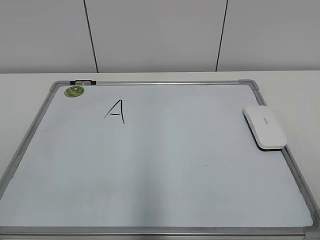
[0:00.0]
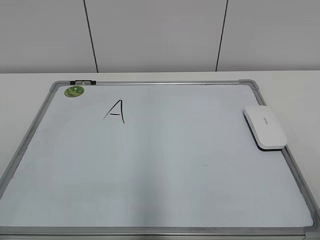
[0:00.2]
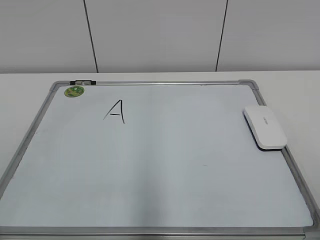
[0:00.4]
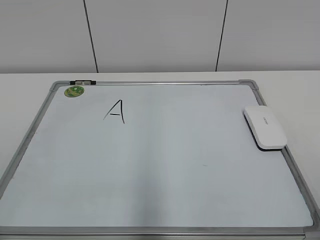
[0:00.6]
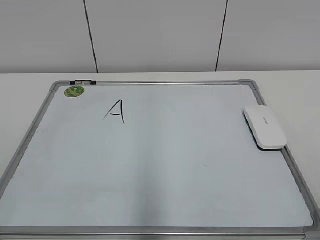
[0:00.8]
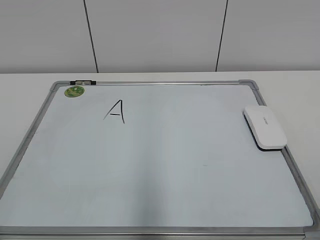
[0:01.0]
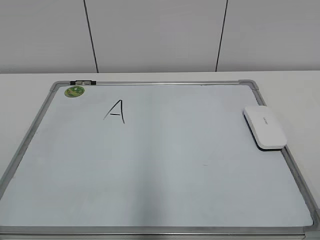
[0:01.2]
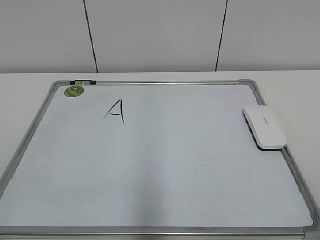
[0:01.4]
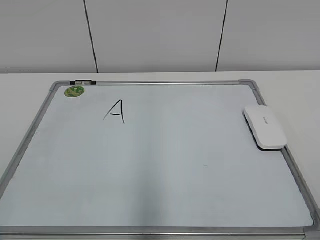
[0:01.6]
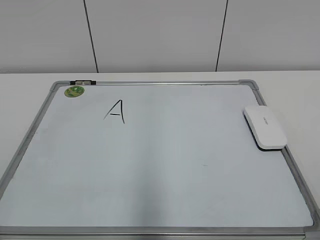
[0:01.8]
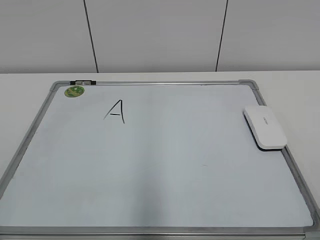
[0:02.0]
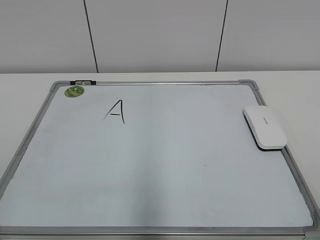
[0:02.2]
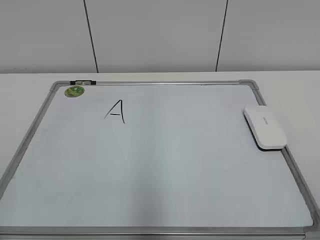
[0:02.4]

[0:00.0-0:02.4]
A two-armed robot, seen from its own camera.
Task of the whole recording: pick up the eraser on the blackboard and erase the letter "a".
0:01.2 to 0:02.4: The two grippers keep their place.

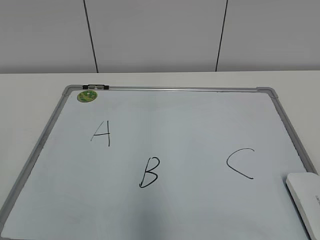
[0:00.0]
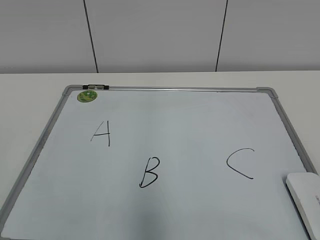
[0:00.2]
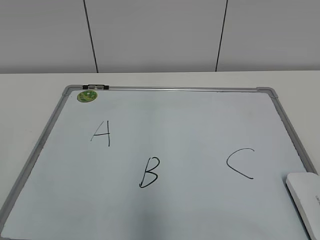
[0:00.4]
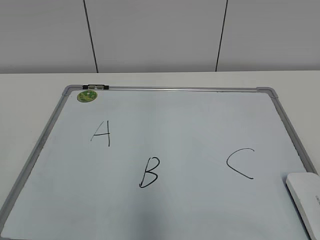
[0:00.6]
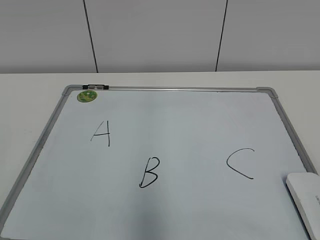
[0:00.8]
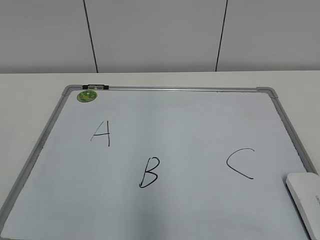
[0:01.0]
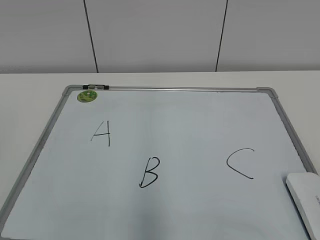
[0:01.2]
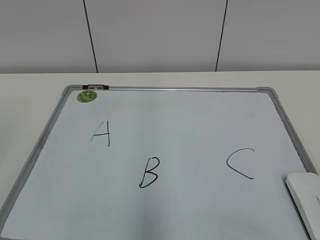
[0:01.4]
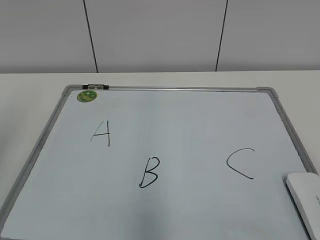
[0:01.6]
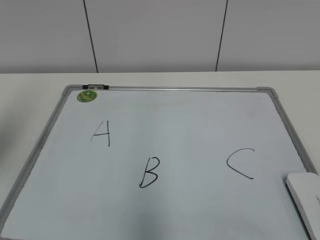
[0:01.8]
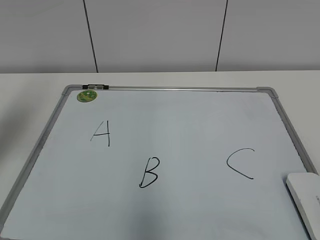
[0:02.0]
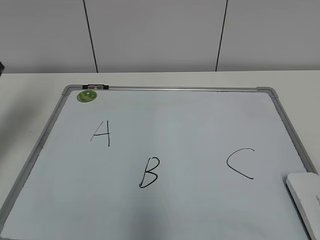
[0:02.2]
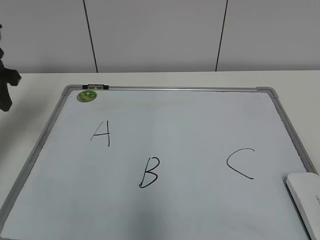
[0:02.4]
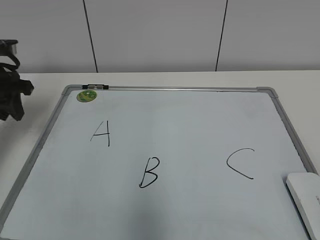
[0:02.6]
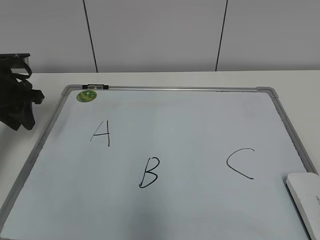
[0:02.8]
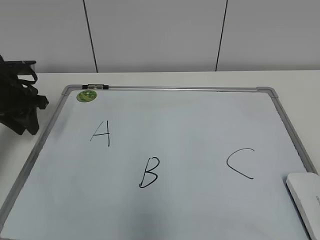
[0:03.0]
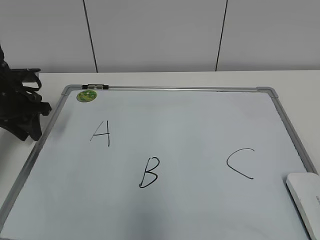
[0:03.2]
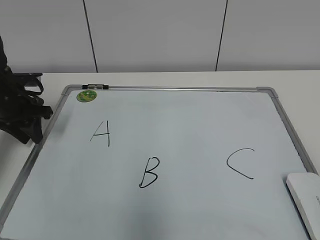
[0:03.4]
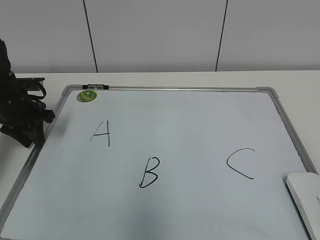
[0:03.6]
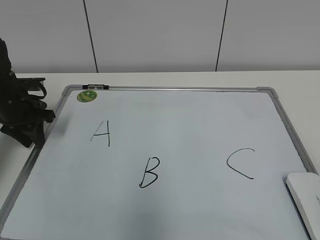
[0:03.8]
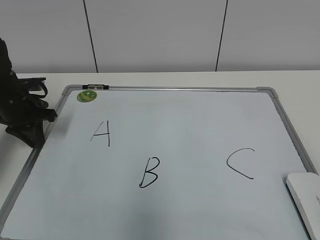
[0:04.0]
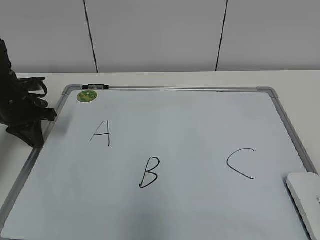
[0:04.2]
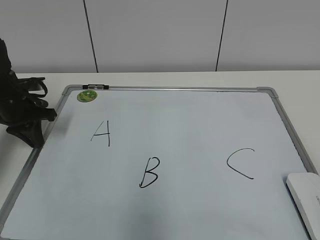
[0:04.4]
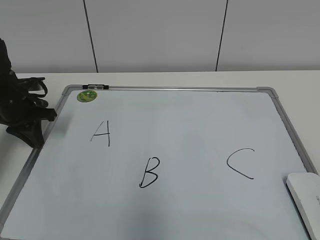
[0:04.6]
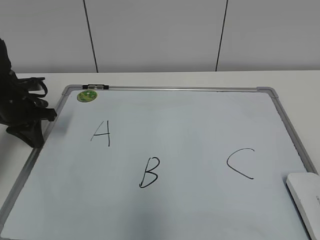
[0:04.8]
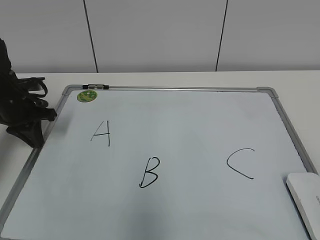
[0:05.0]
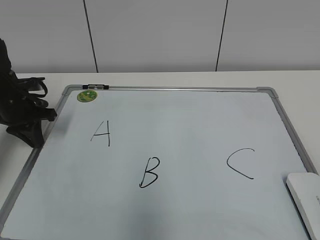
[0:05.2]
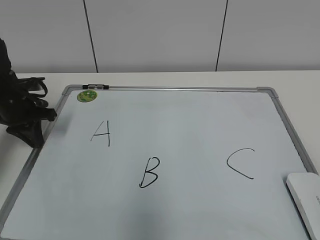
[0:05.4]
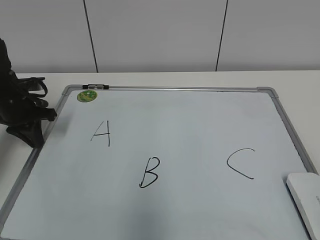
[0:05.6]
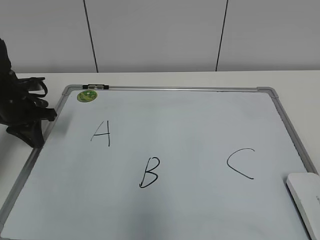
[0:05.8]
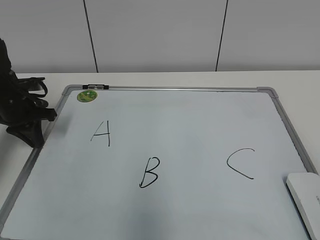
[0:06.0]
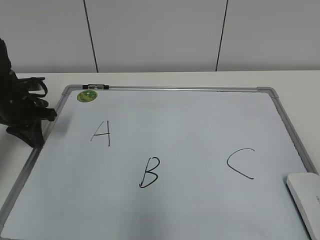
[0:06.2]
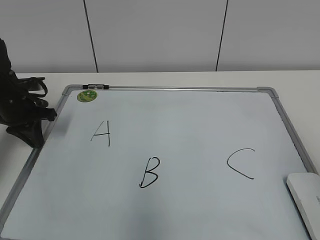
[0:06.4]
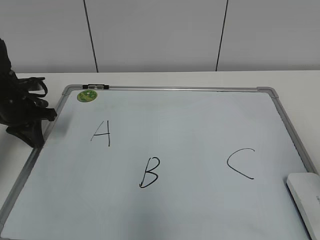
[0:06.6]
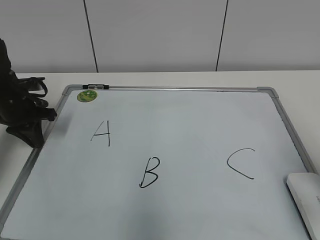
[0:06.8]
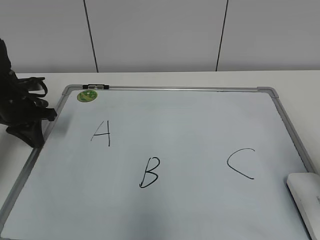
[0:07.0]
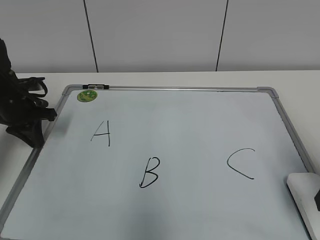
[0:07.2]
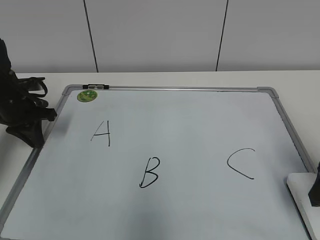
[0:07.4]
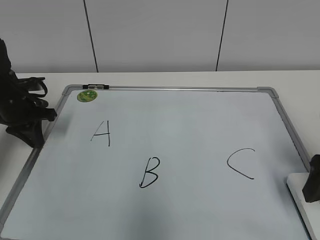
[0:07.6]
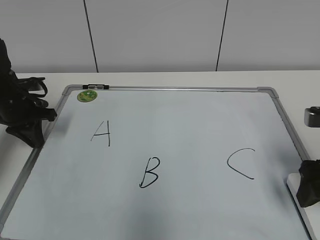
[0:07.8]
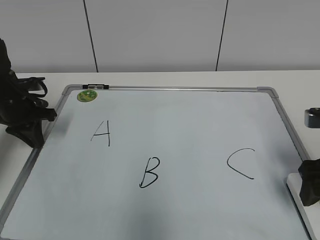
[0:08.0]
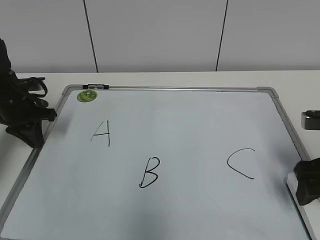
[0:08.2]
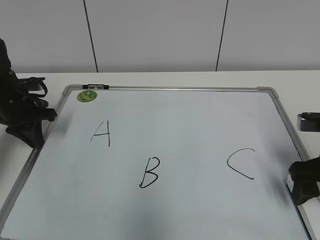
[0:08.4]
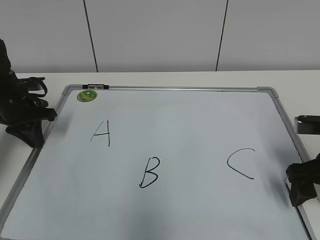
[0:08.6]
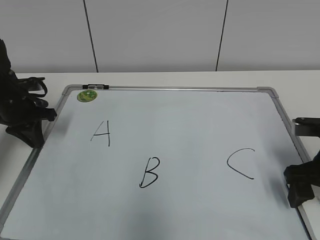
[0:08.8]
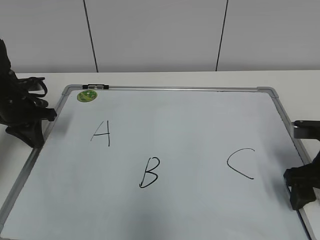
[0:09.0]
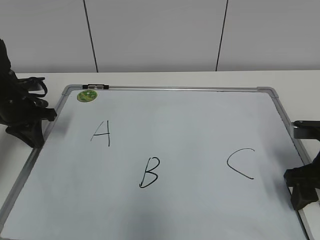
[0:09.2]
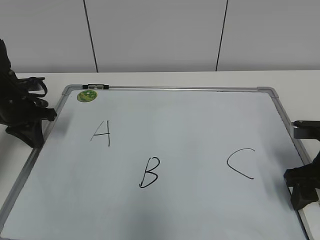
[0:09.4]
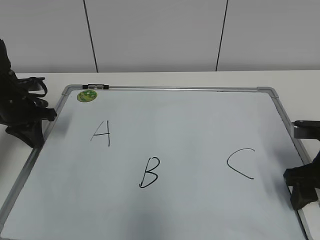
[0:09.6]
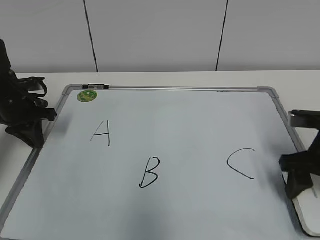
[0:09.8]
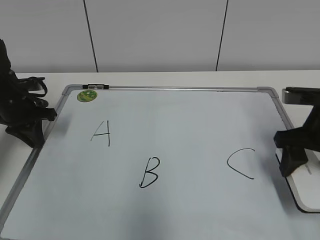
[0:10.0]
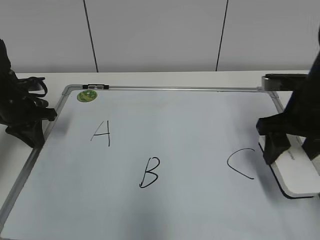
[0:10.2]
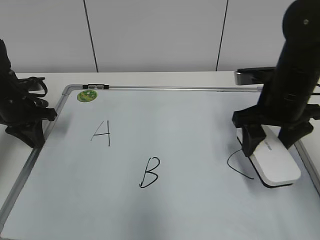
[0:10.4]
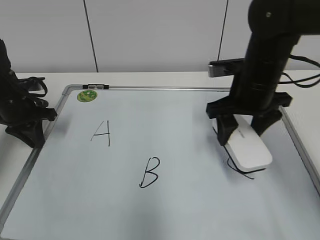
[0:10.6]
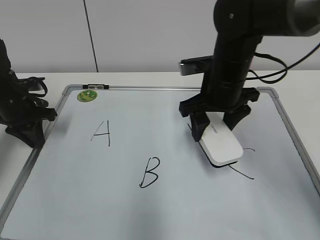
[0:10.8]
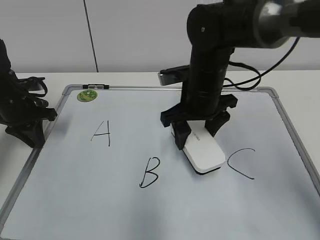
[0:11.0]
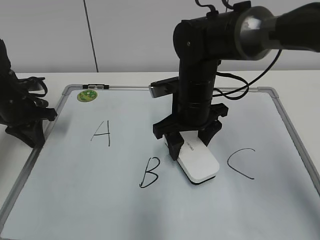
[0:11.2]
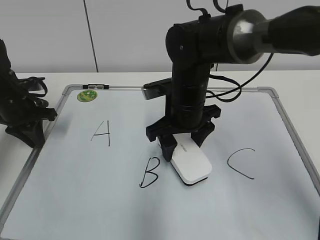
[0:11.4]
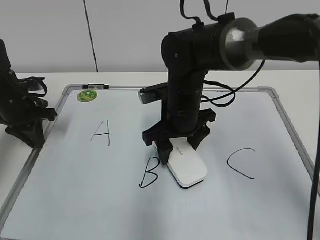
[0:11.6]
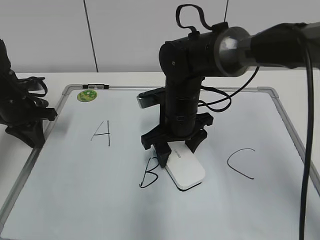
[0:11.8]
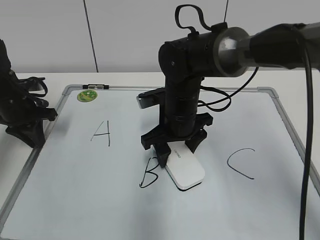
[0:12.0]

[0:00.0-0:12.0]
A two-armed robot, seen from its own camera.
Task of the whole recording: pick up the eraser on the blackboard and erase the letter "B".
Step, 0:00.0 to 0:04.2: Hold the drawing board steady with your left hand.
Step, 0:04.4 to 0:09.4: Grab the eraser with your right hand.
0:01.6 to 0:03.0: The left gripper travels forward and downward by approximately 30 cm.
0:03.0 to 0:04.4: The left gripper closes up.
0:06.0 to 0:07.6: The right gripper moves forward, about 20 cm, and opens its fingers.
0:07.6 to 0:09.0: The right gripper shifts about 5 cm downward.
0:09.0 to 0:10.4: The right gripper travels to the left, forward and upward by approximately 10 cm, and closes up.
0:10.4 to 0:12.0: The right gripper is displaced to the left and downward by roughly 15 cm.

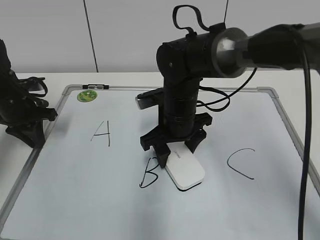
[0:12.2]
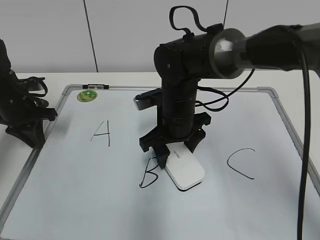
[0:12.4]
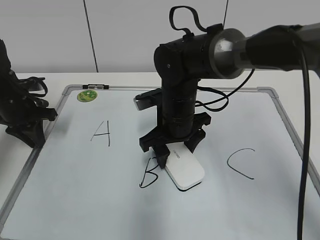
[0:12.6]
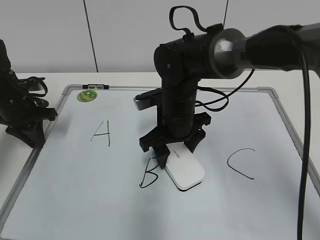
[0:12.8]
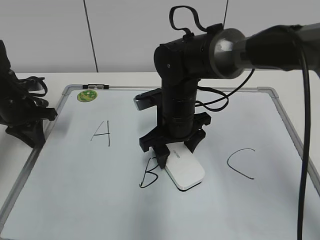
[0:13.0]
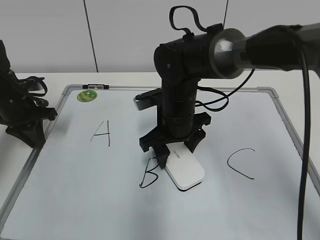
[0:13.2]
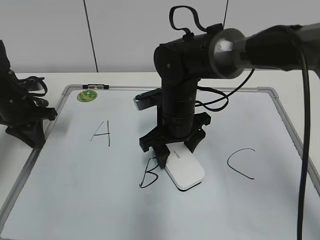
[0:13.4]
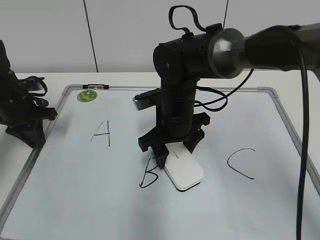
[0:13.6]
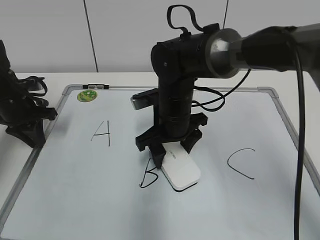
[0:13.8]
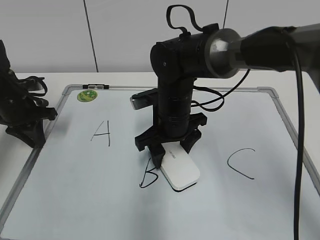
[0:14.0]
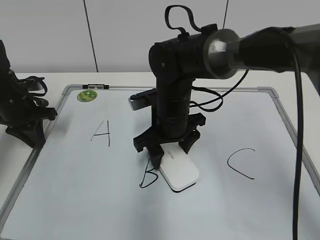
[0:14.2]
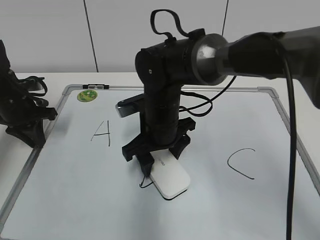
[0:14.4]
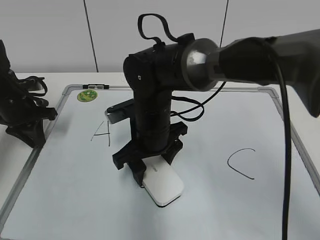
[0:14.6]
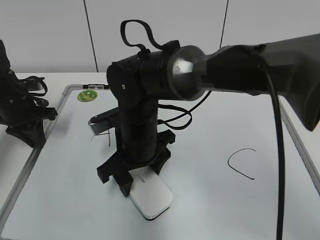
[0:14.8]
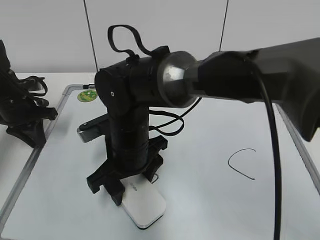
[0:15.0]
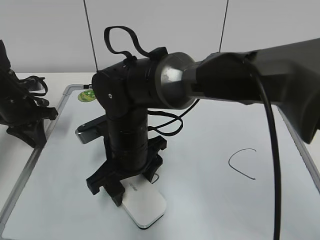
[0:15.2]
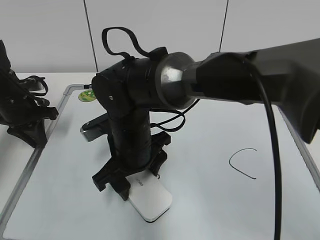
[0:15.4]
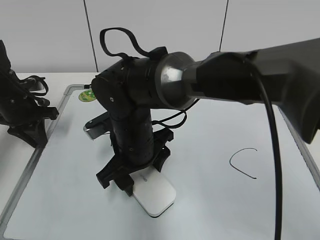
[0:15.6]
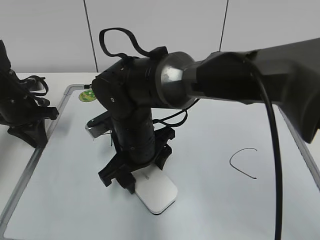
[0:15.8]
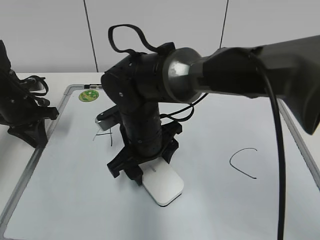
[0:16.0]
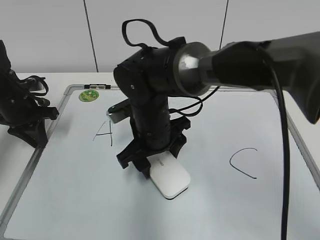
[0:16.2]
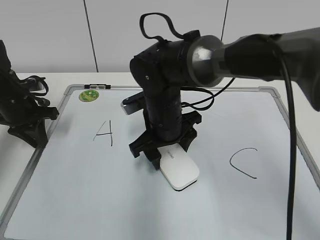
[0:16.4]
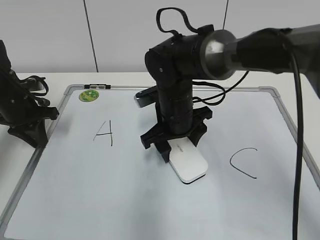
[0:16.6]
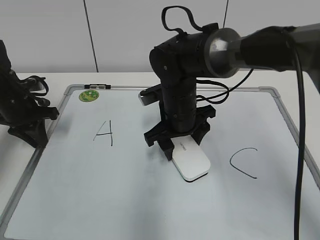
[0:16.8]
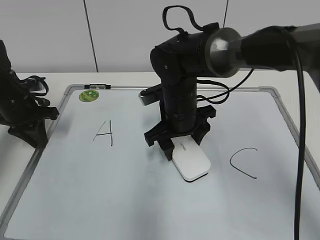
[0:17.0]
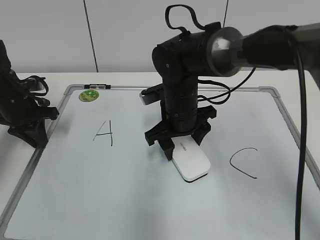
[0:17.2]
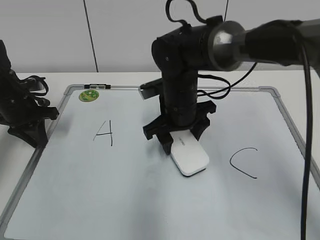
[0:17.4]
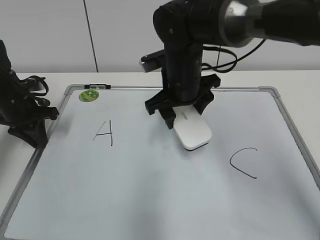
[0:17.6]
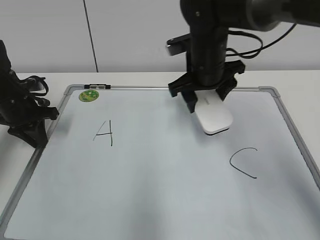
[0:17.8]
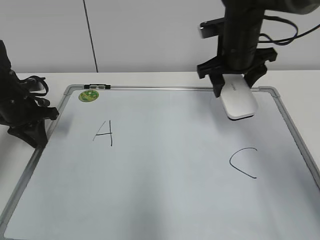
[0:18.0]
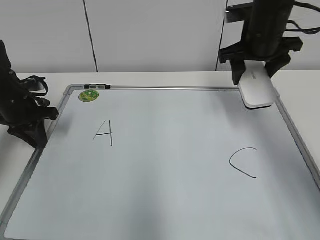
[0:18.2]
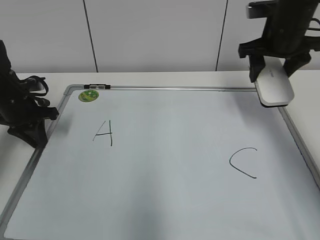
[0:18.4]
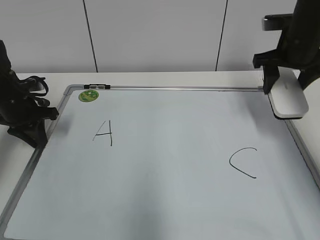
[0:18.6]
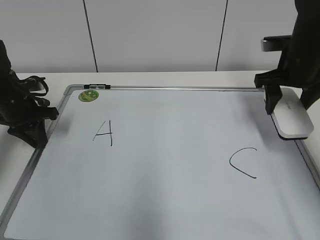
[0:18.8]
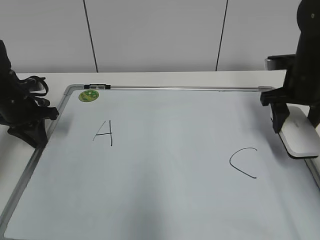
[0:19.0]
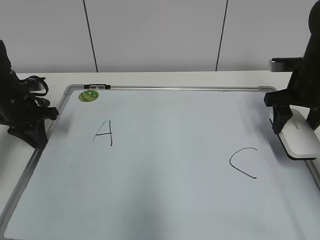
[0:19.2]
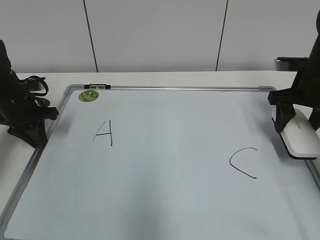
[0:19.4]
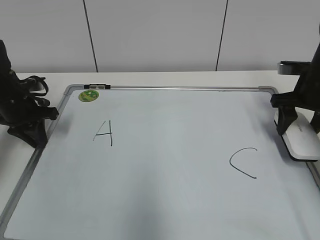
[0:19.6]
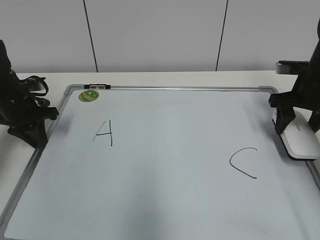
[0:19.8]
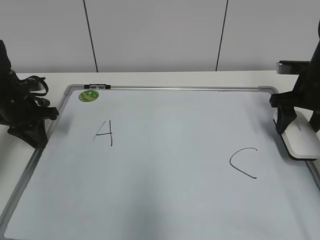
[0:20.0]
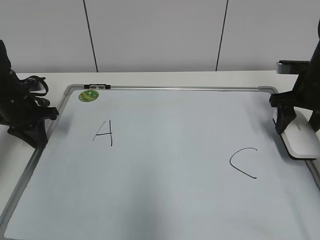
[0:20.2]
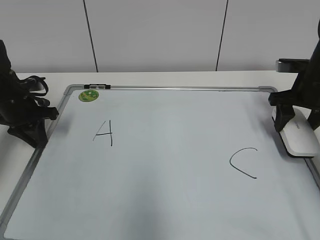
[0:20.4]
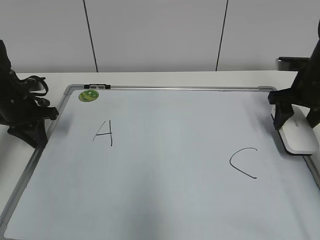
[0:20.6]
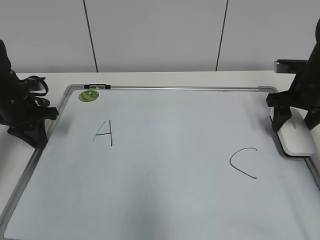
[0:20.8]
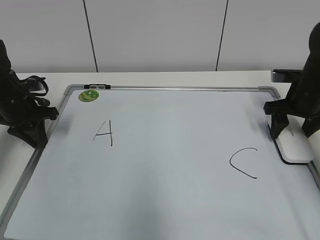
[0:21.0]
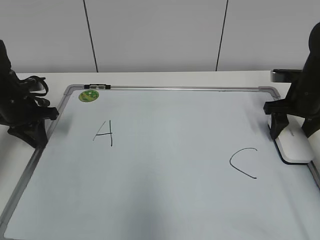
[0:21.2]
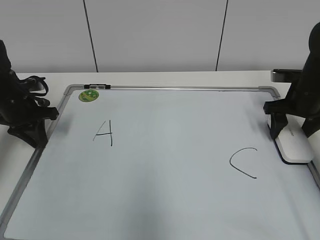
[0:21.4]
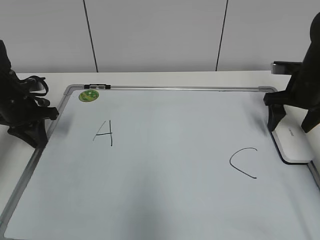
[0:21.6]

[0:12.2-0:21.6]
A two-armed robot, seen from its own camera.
Task of the whole recording: pick up the eraser on the blackboard and erase the letter "B".
Step, 0:12.2 to 0:17.0: Erase the letter B with your right hand.
Step, 0:17.2 to 0:21.2: Put down the eraser with your right hand.
0:12.2 to 0:13.8: Both grippers stay about where they are.
0:13.8 to 0:15.4: The right gripper is displaced to the left and backward by roughly 10 cm.
0:15.4 to 0:17.0: The right gripper travels to the right and forward by roughly 10 cm.
0:17.0 to 0:18.4: The right gripper is displaced to the right and upward by roughly 20 cm.
0:18.4 to 0:20.0: The right gripper shifts some 10 cm downward and to the right.
0:20.0 to 0:21.6: The right gripper opens up.
